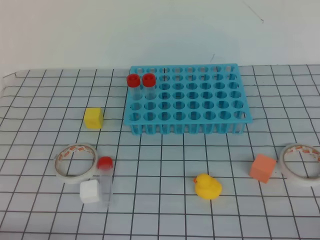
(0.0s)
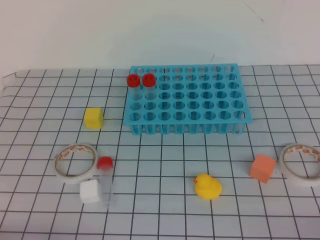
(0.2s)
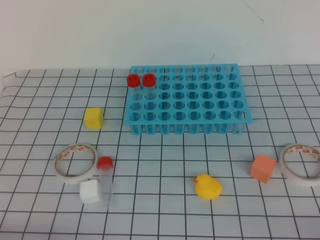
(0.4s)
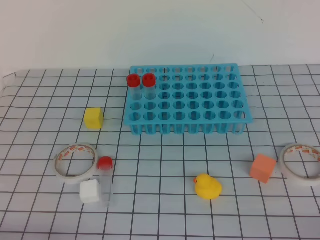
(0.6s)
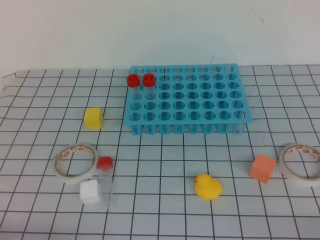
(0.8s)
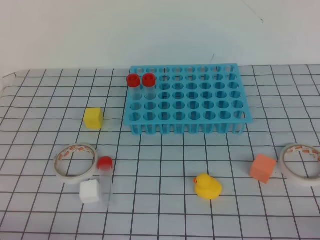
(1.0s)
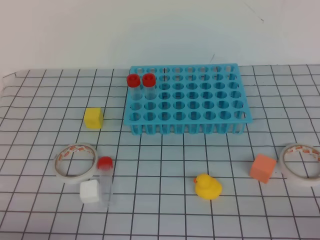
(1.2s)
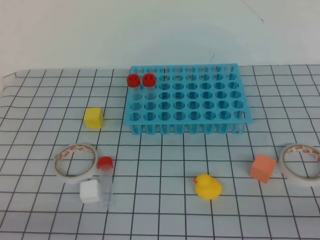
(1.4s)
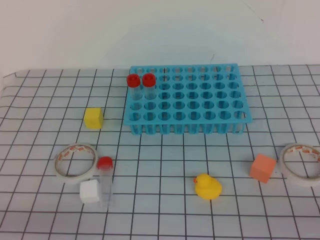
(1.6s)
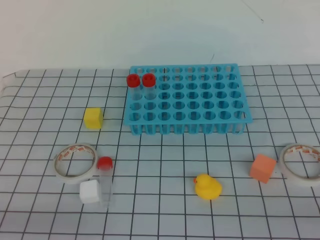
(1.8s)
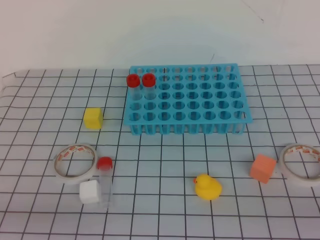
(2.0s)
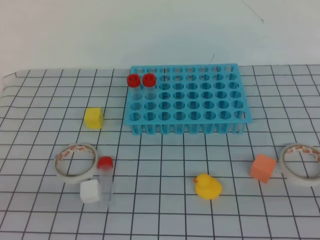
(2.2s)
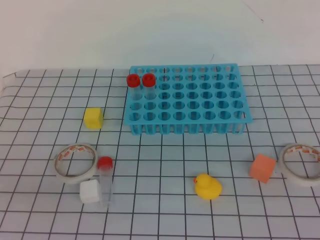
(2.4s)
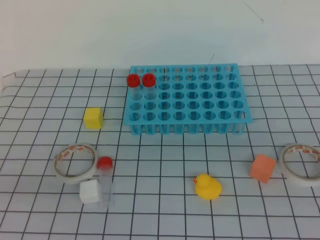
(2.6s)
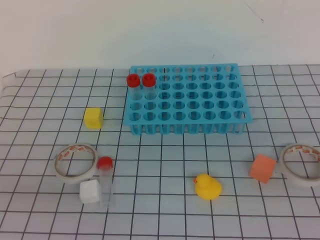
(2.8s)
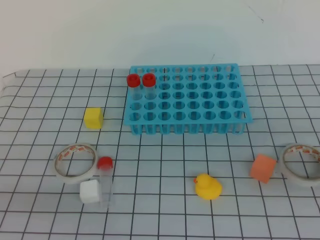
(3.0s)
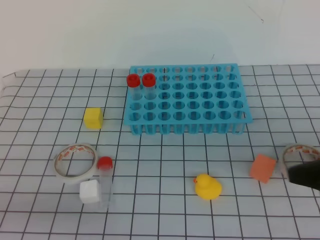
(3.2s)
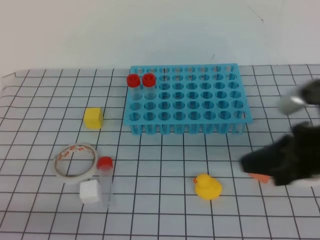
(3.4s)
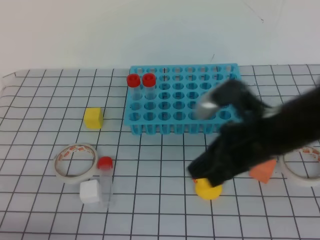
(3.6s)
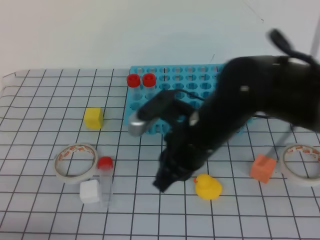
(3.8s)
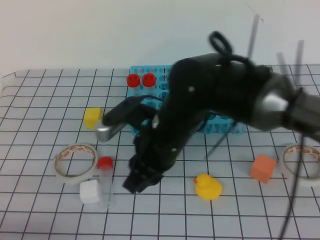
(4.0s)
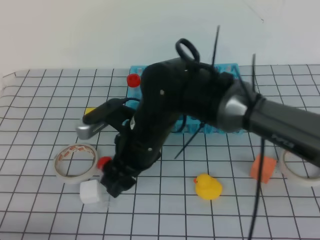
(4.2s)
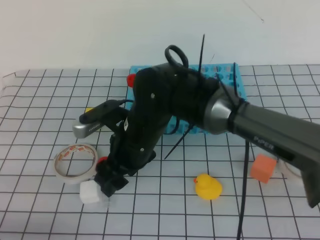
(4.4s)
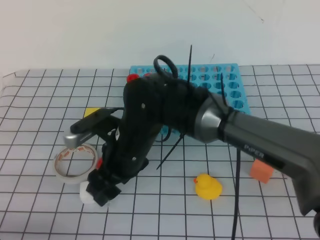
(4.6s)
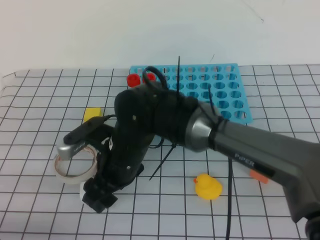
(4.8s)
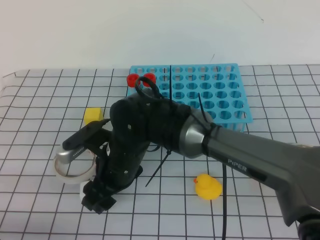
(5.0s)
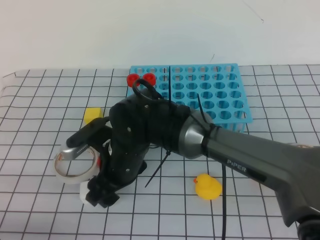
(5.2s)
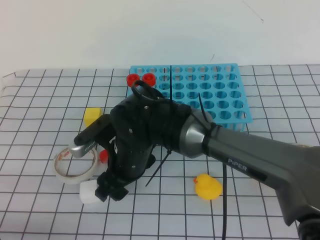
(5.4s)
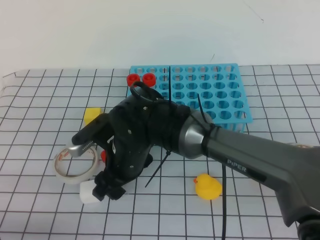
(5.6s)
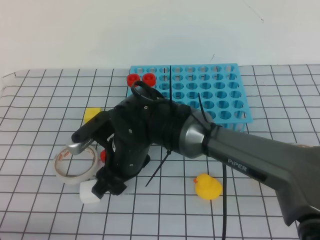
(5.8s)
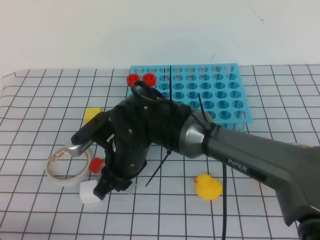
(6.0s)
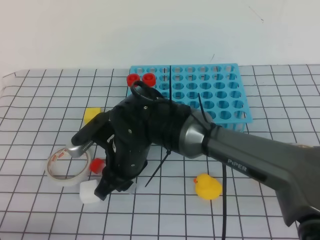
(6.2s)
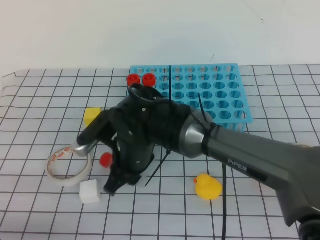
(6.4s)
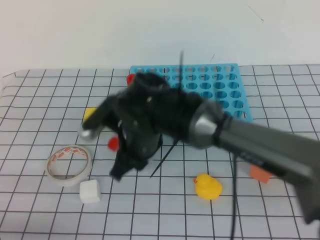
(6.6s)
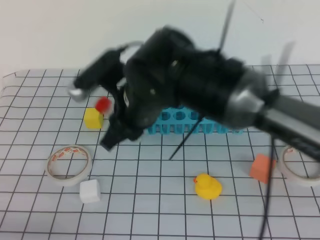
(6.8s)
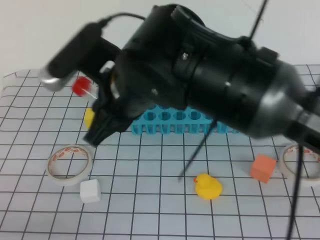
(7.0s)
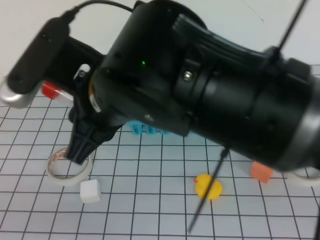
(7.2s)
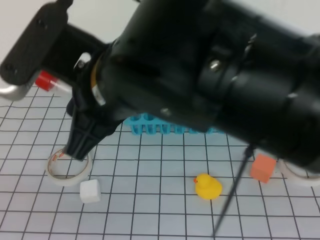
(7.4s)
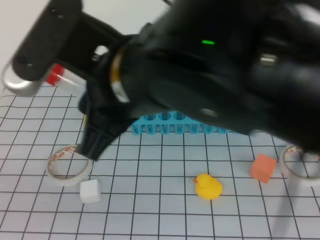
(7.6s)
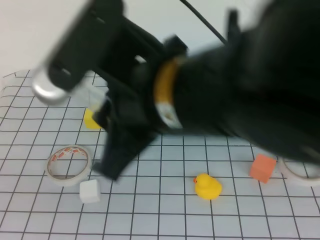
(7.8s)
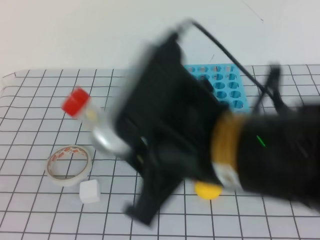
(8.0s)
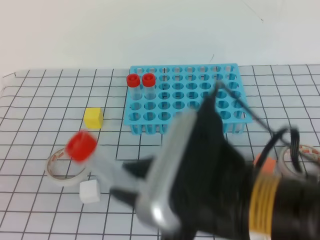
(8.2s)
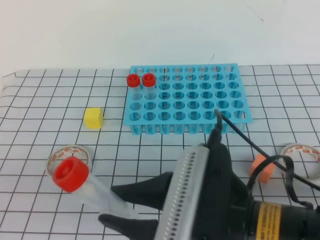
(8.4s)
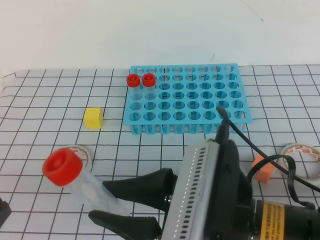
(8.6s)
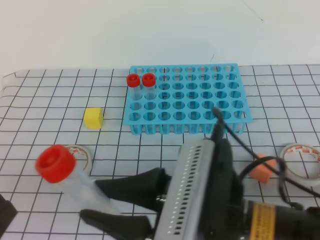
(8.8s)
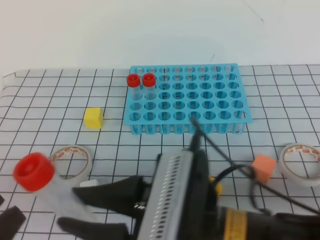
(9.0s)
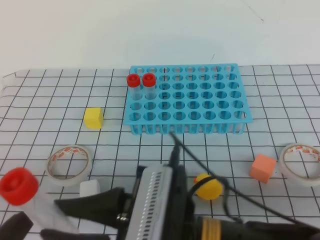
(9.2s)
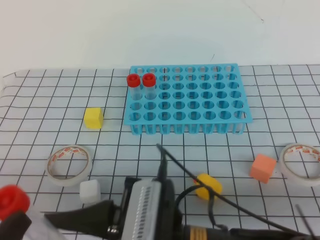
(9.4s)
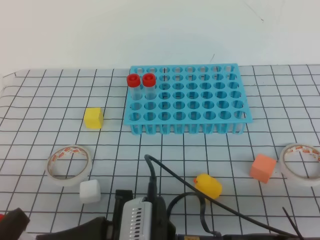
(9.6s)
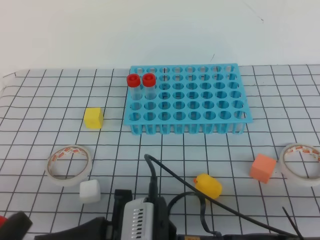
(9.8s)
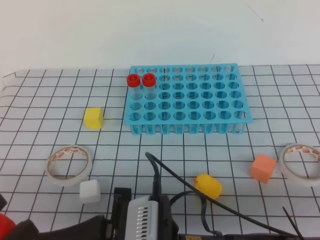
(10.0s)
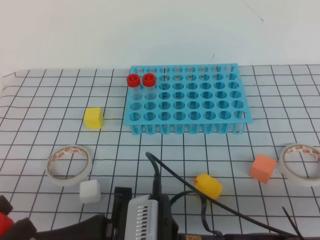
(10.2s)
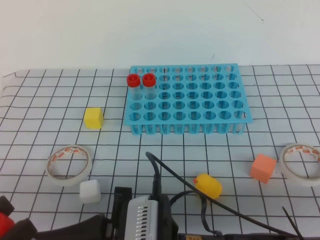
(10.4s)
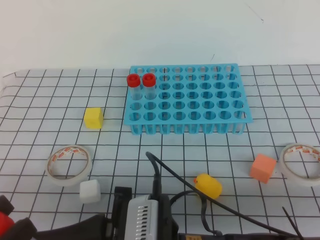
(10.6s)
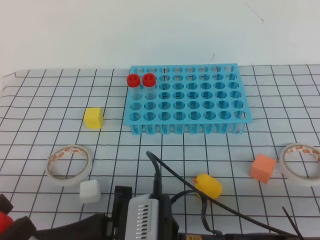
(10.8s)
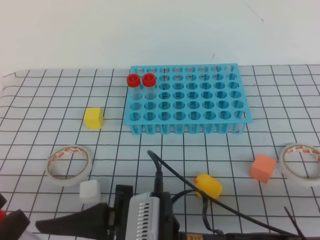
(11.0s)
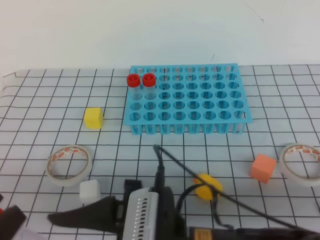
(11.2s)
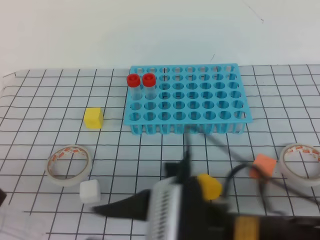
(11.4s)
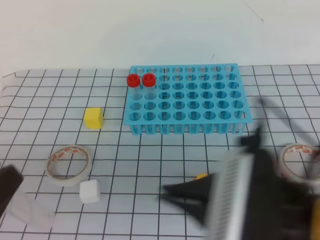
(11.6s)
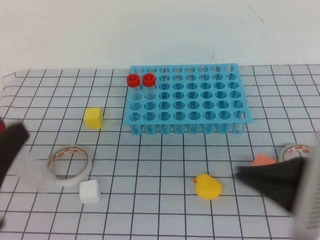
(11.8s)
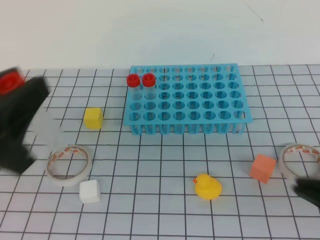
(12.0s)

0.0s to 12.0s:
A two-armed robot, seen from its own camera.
1.6s to 3.0s: The right gripper is displaced forward and upward by about 15 cm.
3.0s to 4.4s: The left gripper goes some 5 cm downward. Meanwhile the right gripper moves to the left and forward, roughly 35 cm, and opens up.
4.4s to 6.0s: The right gripper closes up.
6.0s to 7.6s: The left gripper is displaced upward and backward by roughly 10 cm, while the right gripper travels upward and backward by approximately 25 cm.
7.6s to 9.0s: The right gripper moves downward, backward and to the right, about 15 cm; the left gripper opens up.
9.0s to 10.4s: The right gripper changes place by approximately 5 cm.
10.4s to 12.0s: The left gripper travels forward and upward by roughly 10 cm. The right gripper goes approximately 20 cm to the right and upward, and closes its fingers.

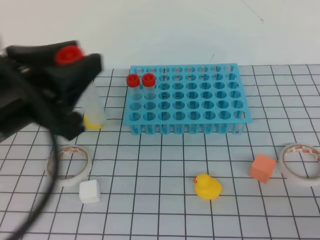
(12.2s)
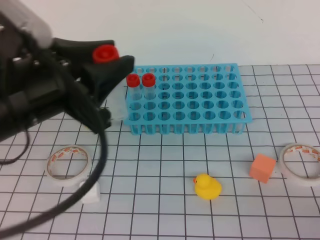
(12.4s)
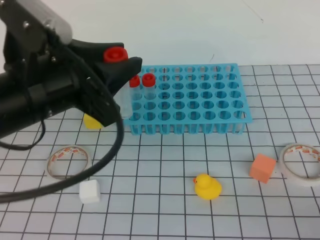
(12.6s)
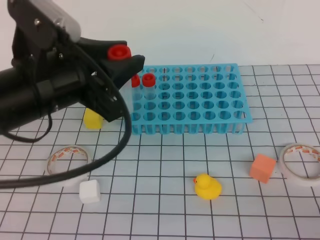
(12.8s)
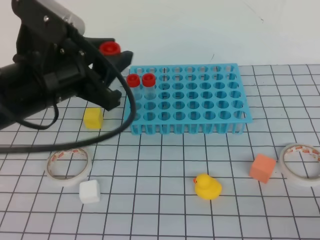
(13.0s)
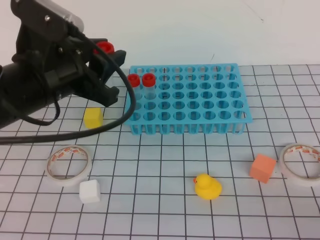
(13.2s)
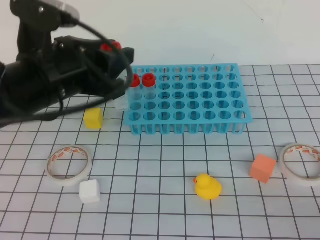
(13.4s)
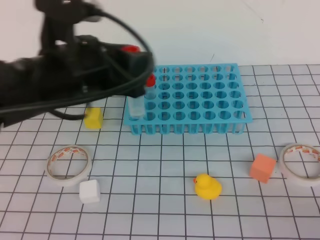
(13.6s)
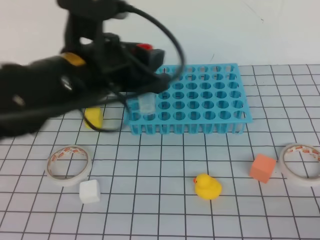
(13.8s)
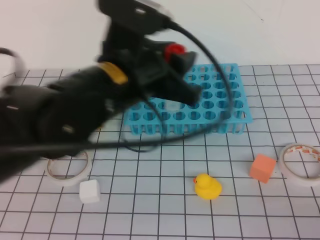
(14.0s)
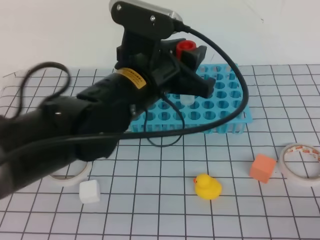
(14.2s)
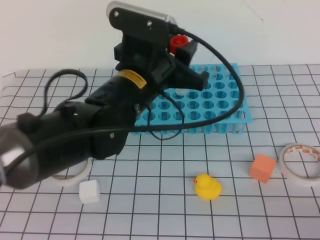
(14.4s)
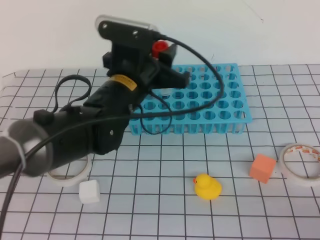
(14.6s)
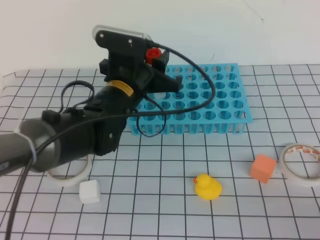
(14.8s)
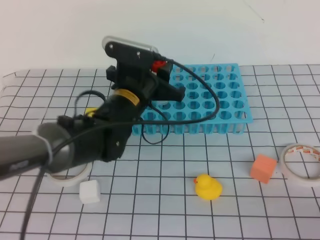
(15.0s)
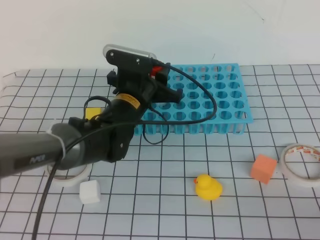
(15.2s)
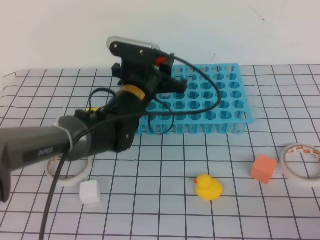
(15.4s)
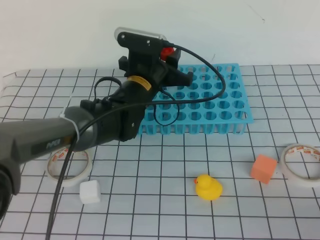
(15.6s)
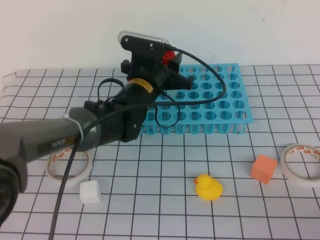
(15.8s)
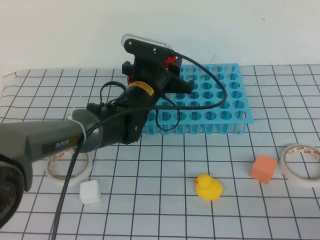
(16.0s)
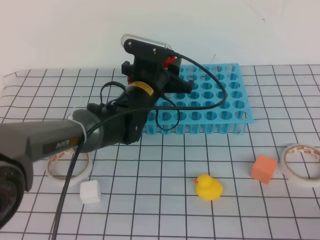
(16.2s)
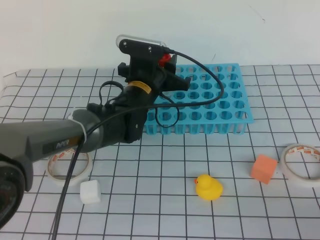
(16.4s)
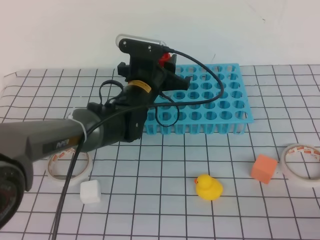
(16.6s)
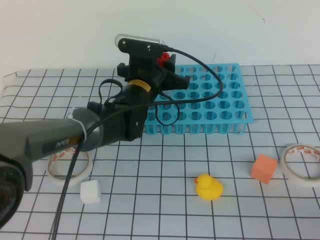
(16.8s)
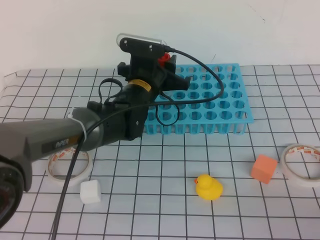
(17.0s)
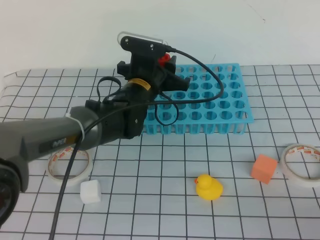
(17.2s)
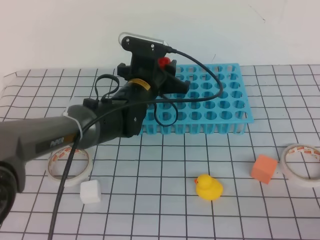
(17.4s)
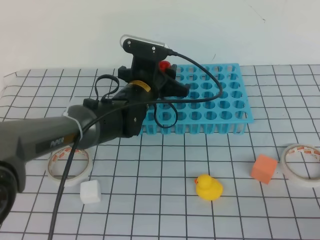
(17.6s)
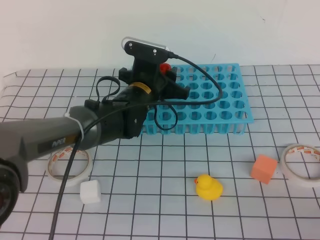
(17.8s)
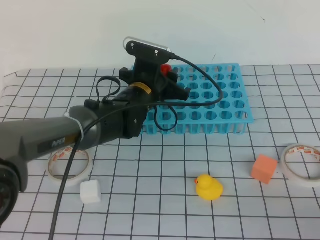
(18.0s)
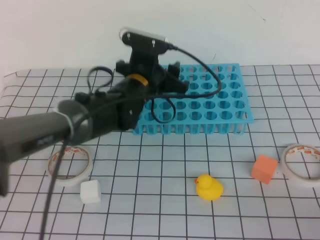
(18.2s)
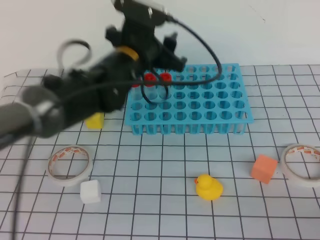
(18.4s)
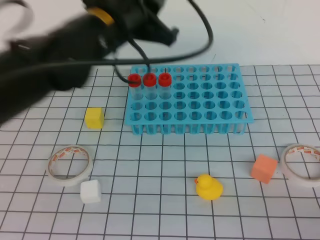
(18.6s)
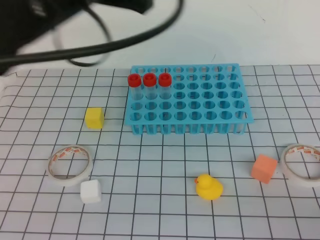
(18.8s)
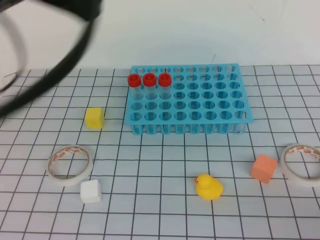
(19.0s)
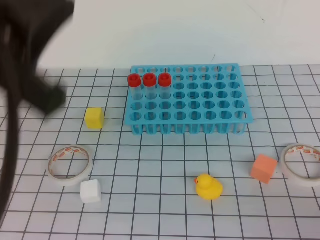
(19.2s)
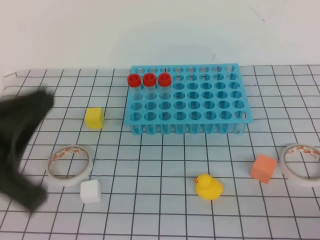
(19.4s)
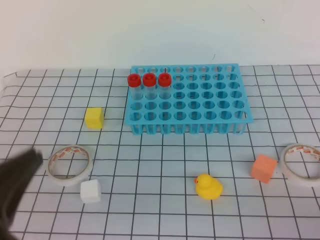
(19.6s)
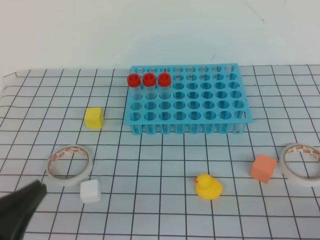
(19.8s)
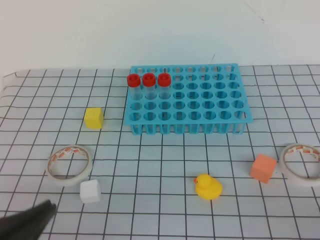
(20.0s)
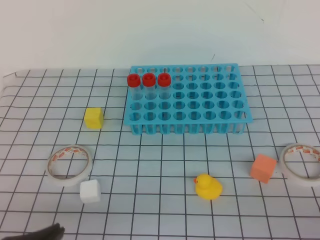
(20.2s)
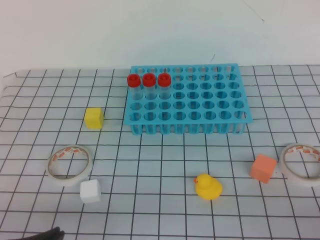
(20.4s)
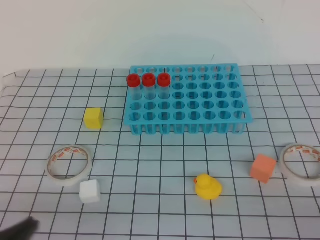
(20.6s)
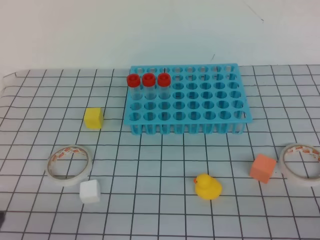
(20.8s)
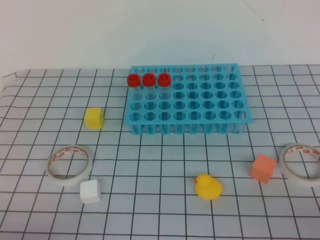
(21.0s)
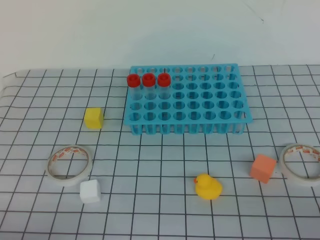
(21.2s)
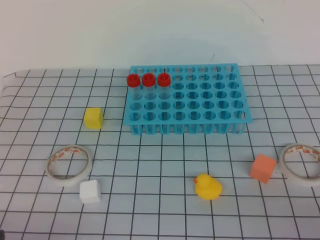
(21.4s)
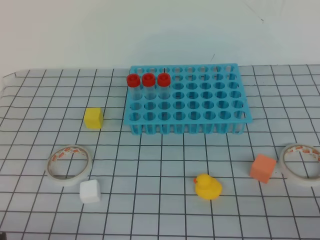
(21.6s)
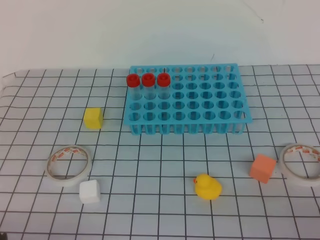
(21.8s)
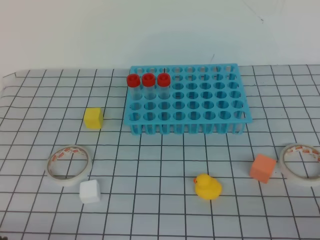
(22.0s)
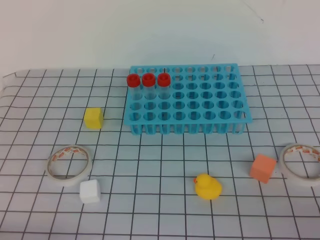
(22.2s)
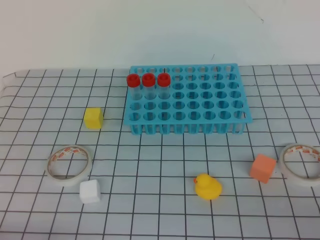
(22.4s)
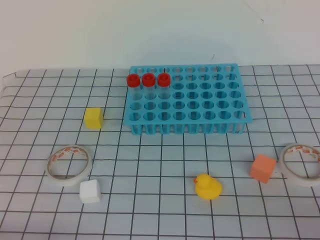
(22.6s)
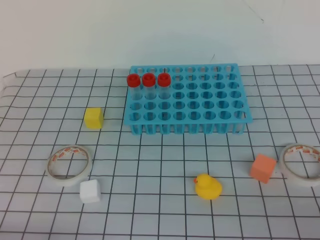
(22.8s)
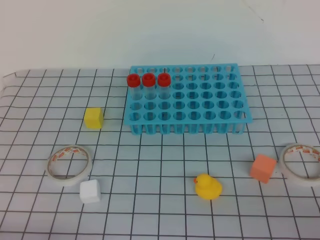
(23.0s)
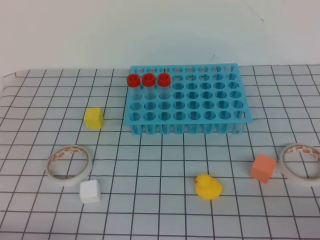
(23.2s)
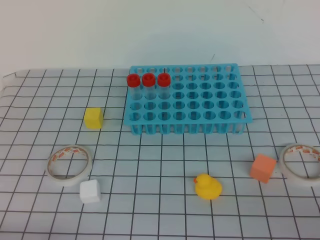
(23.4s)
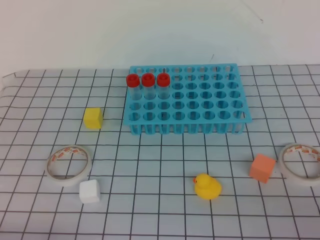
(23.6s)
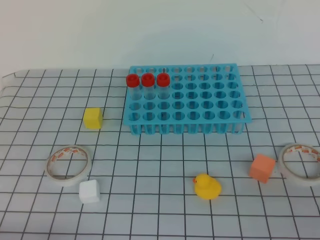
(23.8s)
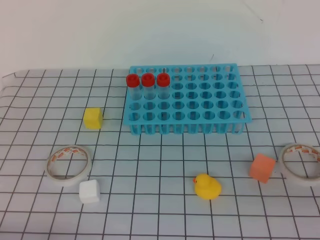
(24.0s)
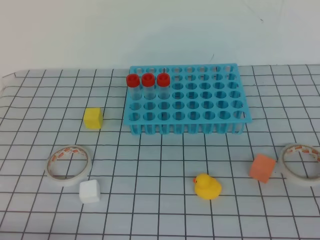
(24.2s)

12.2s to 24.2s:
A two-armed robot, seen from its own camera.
12.2s to 13.8s: The left gripper is displaced forward and to the right by some 15 cm.
13.8s to 15.2s: The left gripper is displaced downward and forward by some 15 cm.
15.2s to 18.2s: The grippers stay close to where they were, moving slightly.
18.2s to 19.8s: The left gripper heads backward and to the left, covering approximately 35 cm, and closes.
19.8s to 21.2s: The left gripper travels downward by some 10 cm.
